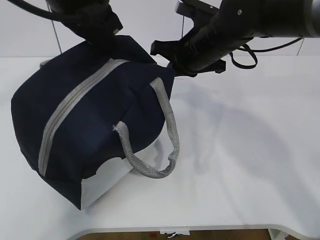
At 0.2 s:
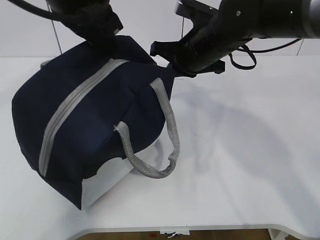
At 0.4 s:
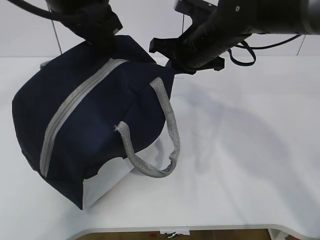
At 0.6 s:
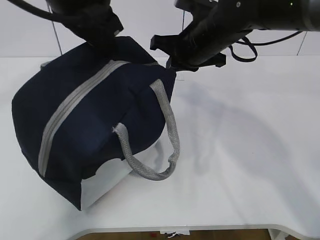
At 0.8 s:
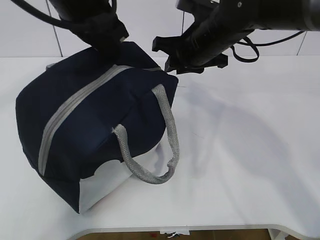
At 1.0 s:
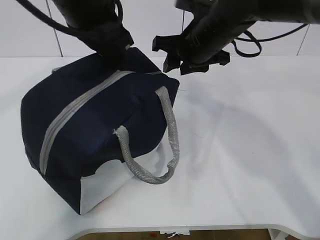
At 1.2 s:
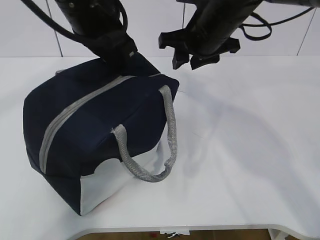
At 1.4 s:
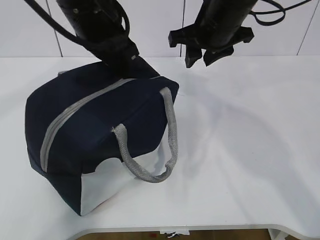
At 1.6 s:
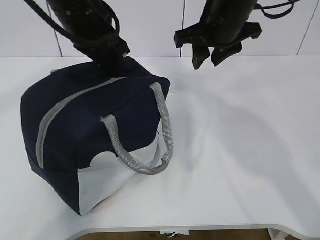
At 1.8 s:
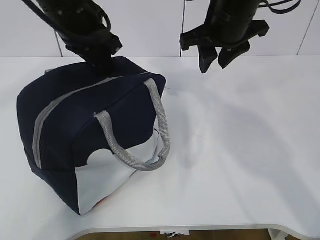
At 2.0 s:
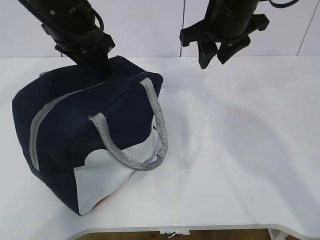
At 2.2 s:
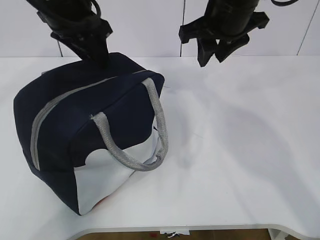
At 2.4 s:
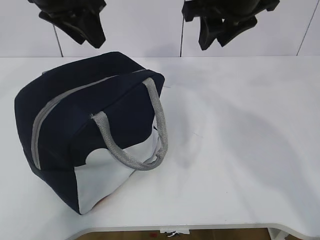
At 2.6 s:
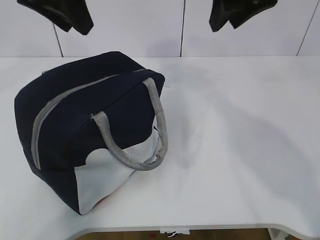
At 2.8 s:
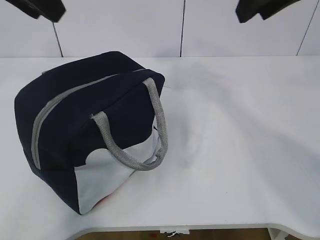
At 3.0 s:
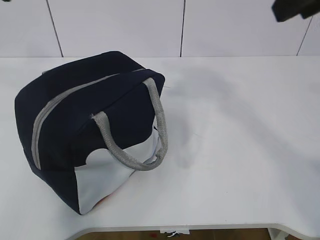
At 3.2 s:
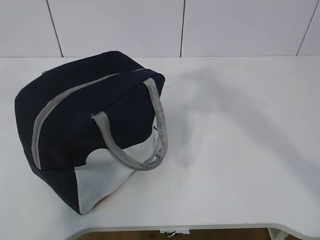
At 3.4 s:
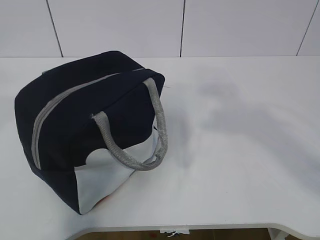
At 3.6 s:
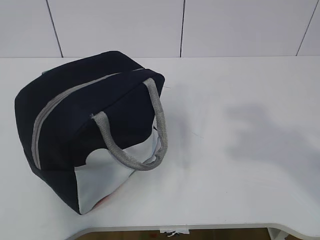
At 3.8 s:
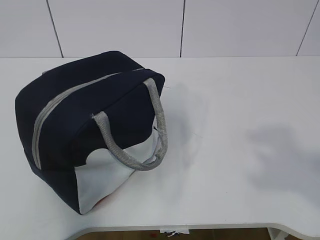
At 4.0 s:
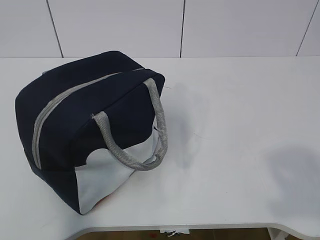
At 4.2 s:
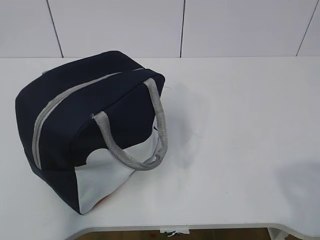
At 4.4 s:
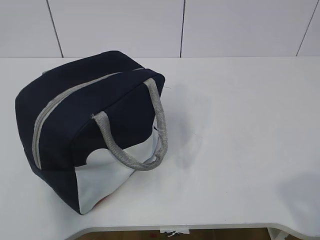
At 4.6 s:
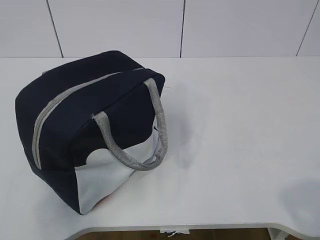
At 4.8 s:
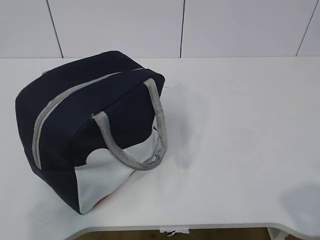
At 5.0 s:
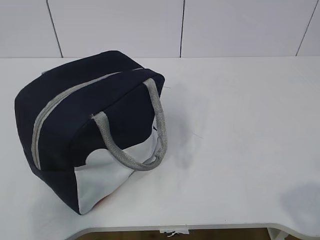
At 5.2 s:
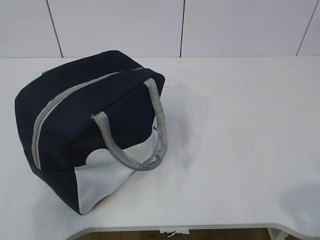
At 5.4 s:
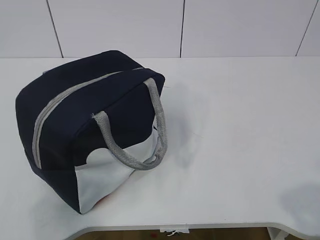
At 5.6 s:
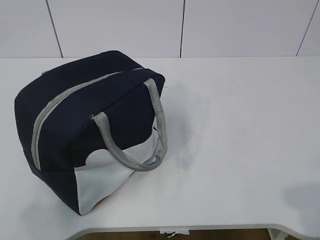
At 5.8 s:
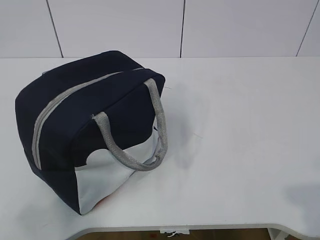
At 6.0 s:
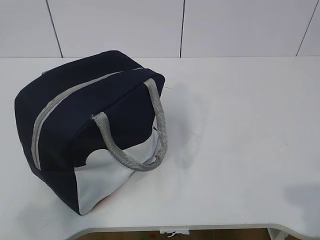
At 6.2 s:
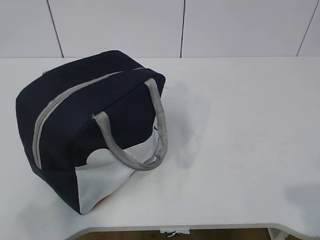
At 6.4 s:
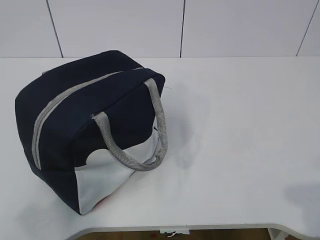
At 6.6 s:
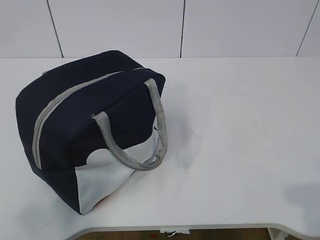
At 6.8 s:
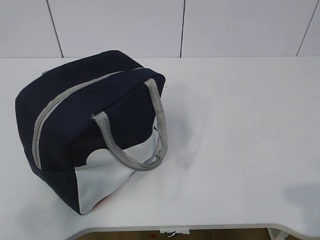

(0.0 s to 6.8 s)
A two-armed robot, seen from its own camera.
0.0 s - 1.4 s: The left gripper changes place by roughly 5 cm. Meanwhile the right gripper goes some 5 cm upward, and opens its fingers.
1.4 s - 2.8 s: The right gripper shifts some 15 cm upward and backward, while the left gripper moves upward, to the left and backward, some 15 cm, and opens.
2.8 s - 4.0 s: The left gripper shifts about 30 cm backward and to the left. Meanwhile the right gripper heads backward and to the right, covering roughly 35 cm.
4.0 s - 5.4 s: The two grippers go approximately 10 cm downward.
5.4 s - 6.8 s: The grippers stay close to where they were, moving slightly.
